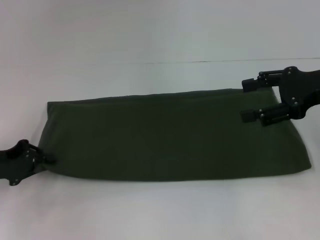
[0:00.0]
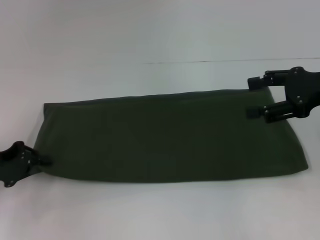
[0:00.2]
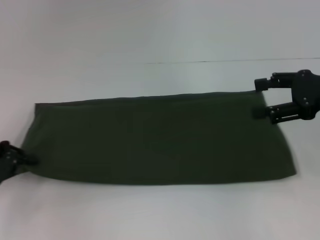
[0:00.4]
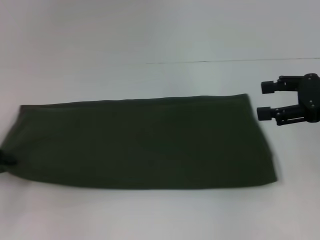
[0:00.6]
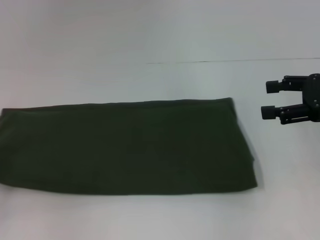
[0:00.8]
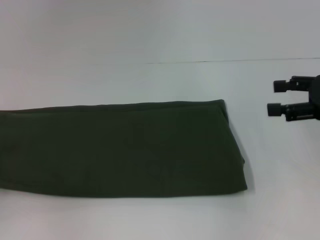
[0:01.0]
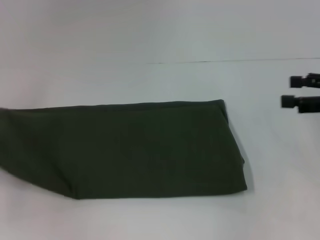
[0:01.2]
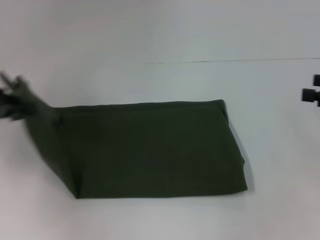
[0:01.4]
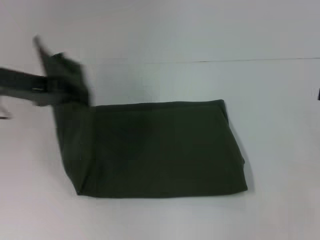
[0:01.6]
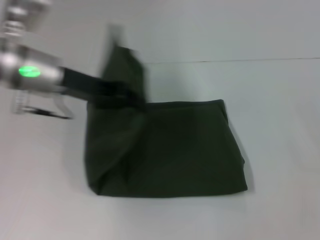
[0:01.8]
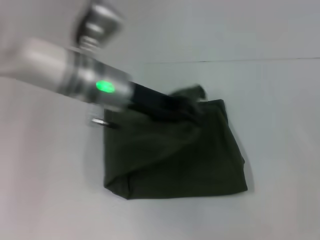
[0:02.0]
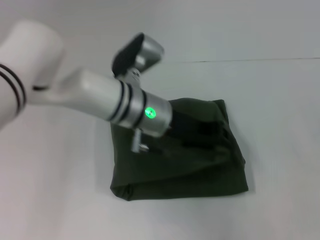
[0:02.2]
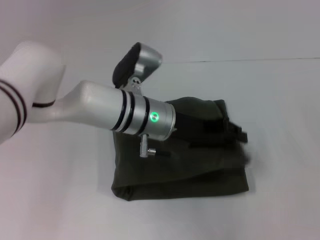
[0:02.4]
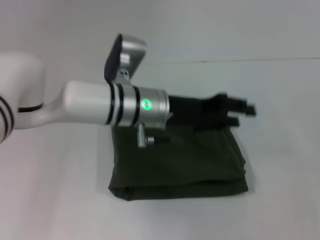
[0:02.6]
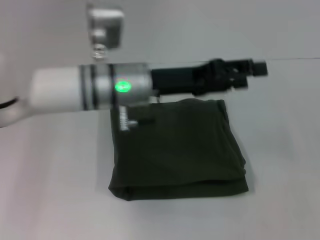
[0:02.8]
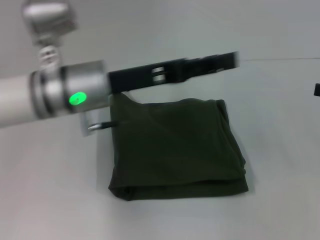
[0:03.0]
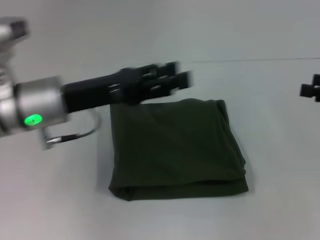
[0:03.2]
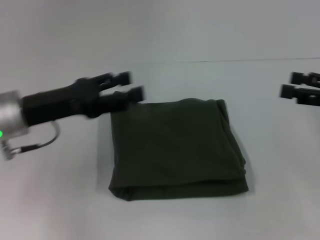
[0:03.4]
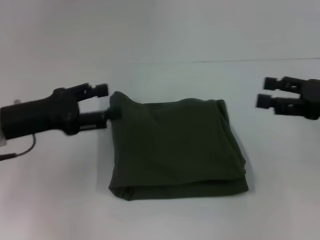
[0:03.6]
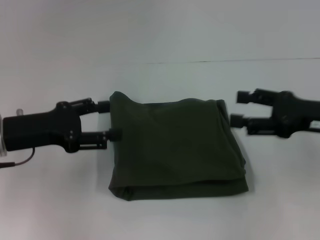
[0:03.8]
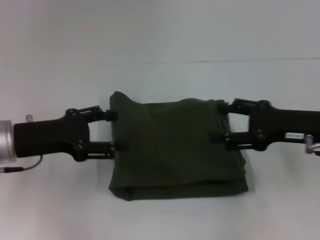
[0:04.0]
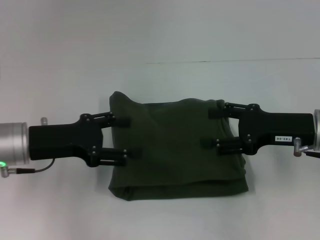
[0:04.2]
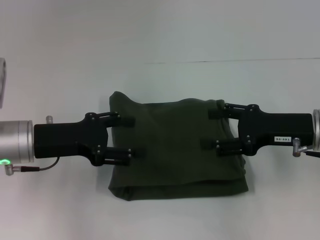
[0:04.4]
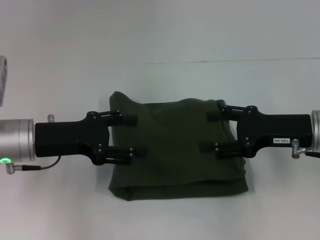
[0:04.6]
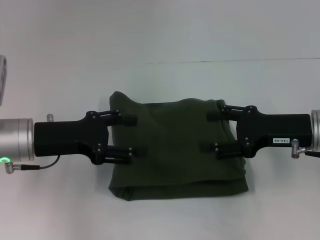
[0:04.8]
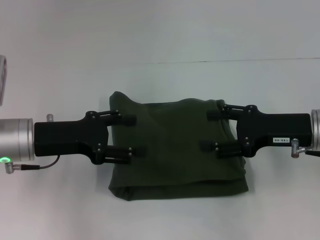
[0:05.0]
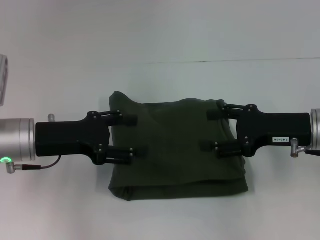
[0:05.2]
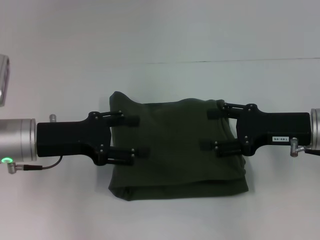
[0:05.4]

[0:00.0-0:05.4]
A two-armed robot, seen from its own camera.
Step, 0:00.0 to 0:02.6: Fold the clothes with your left hand.
0:00.0 to 0:01.4: The right gripper heads to the right, covering about 10 cm; the left gripper goes roughly 10 cm upward.
0:01.4 to 0:02.8: The left gripper is displaced to the right by about 30 cm, and opens up.
0:02.8 to 0:04.0: The two grippers go some 15 cm to the left.
0:04.0 to 0:05.4: The grippers stay close to where they were, moving slightly.

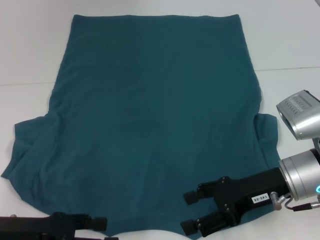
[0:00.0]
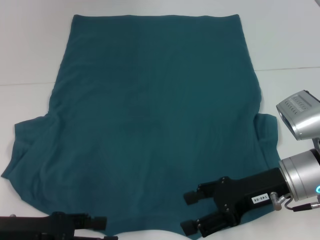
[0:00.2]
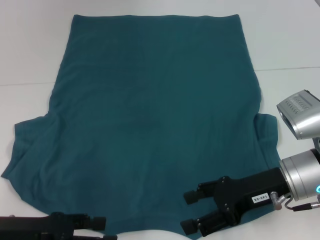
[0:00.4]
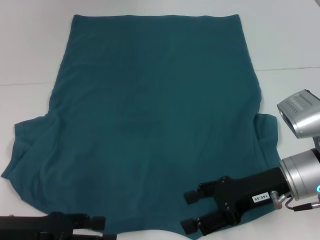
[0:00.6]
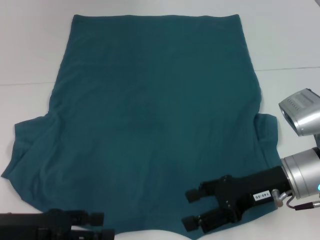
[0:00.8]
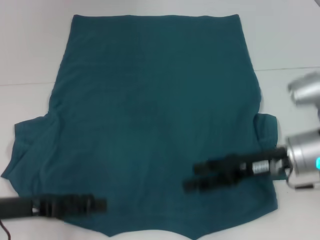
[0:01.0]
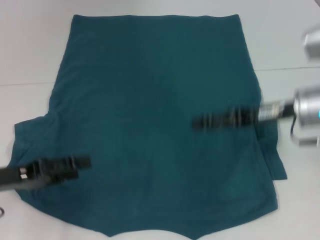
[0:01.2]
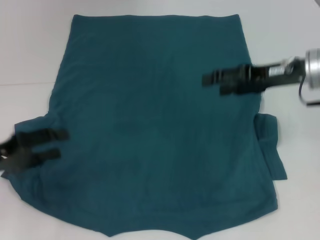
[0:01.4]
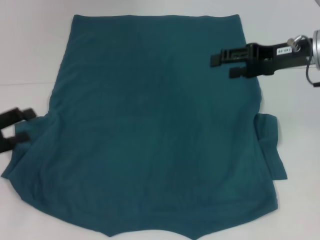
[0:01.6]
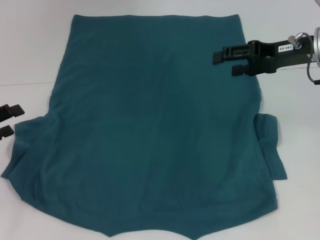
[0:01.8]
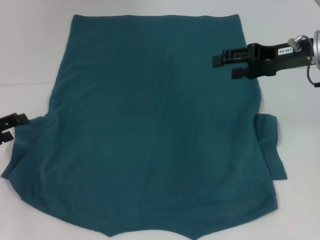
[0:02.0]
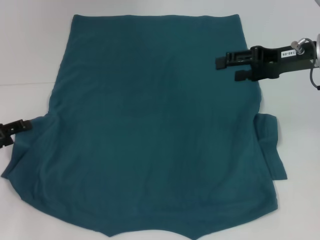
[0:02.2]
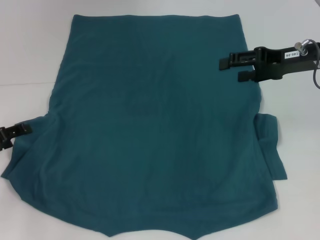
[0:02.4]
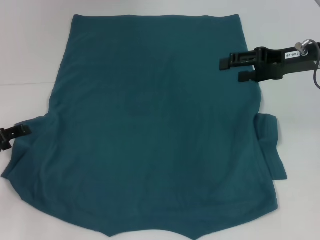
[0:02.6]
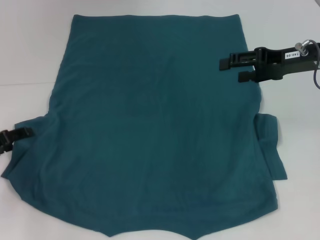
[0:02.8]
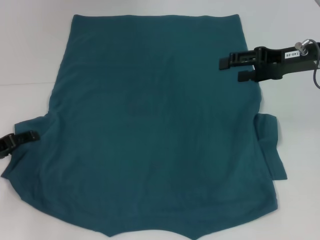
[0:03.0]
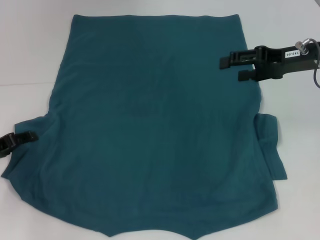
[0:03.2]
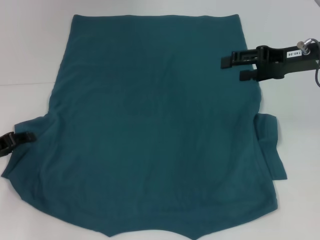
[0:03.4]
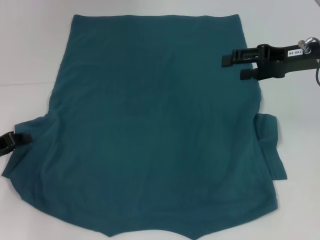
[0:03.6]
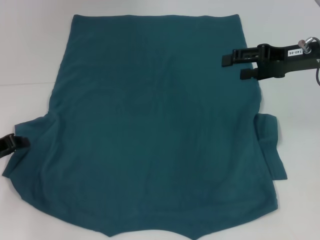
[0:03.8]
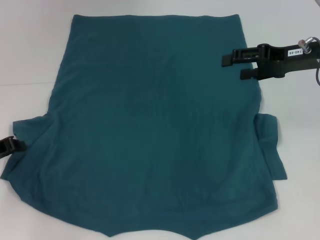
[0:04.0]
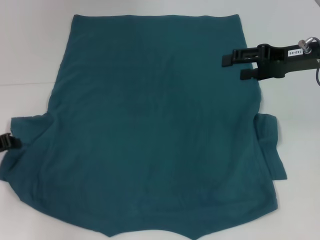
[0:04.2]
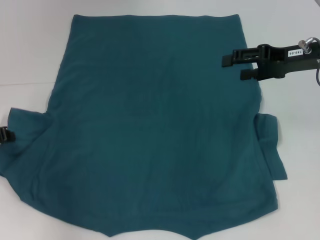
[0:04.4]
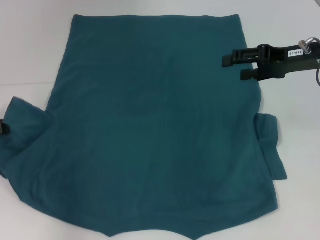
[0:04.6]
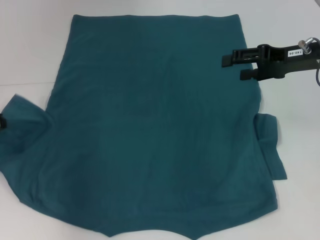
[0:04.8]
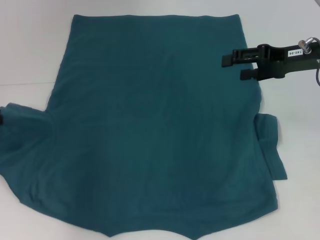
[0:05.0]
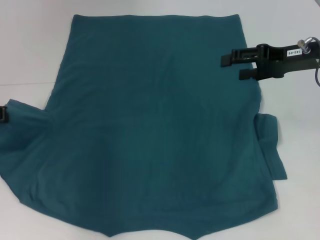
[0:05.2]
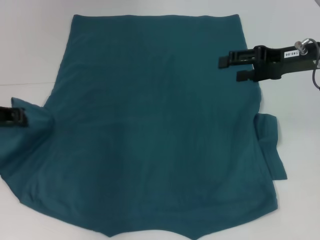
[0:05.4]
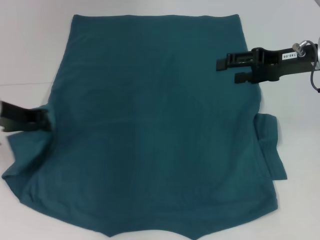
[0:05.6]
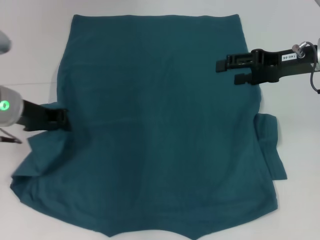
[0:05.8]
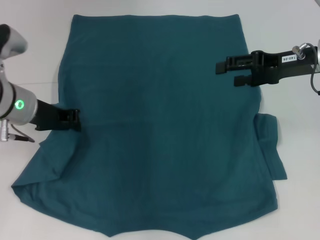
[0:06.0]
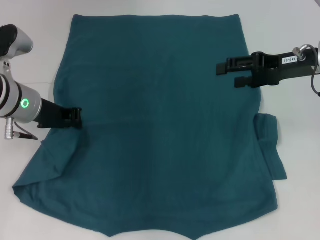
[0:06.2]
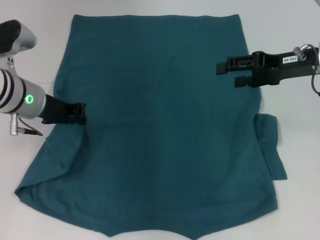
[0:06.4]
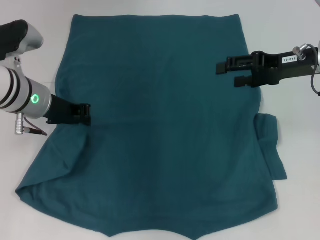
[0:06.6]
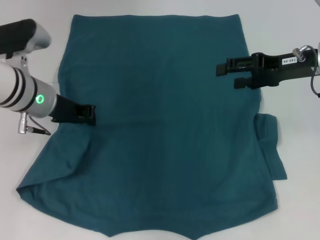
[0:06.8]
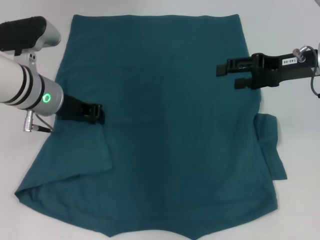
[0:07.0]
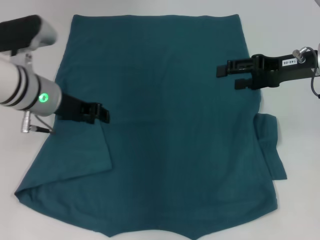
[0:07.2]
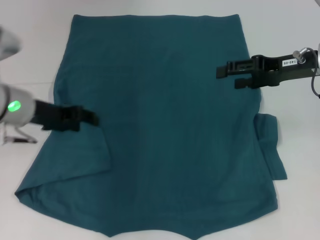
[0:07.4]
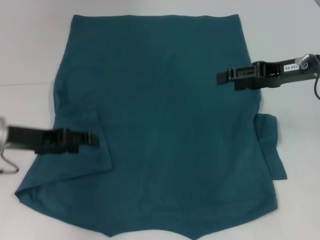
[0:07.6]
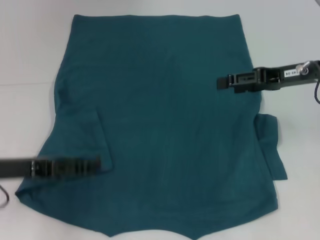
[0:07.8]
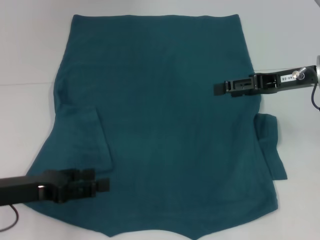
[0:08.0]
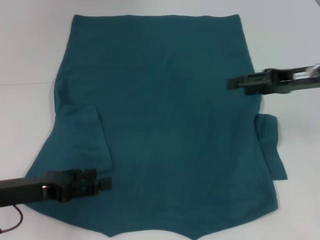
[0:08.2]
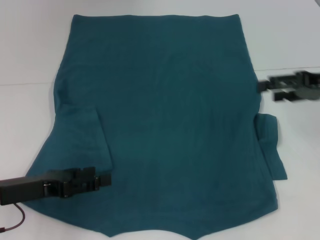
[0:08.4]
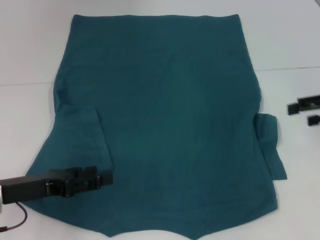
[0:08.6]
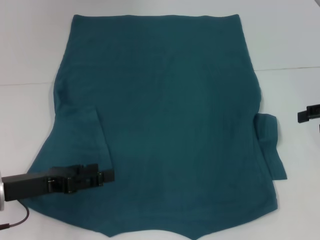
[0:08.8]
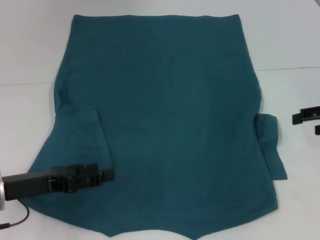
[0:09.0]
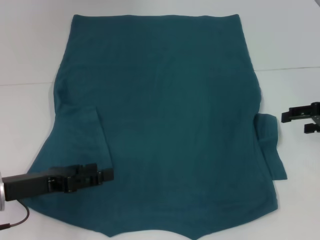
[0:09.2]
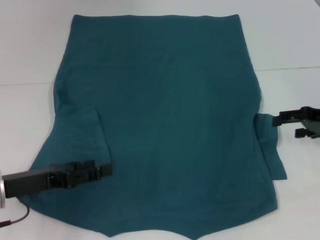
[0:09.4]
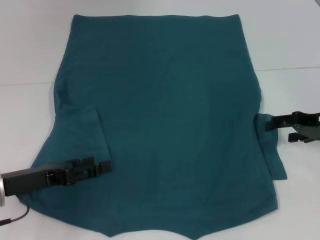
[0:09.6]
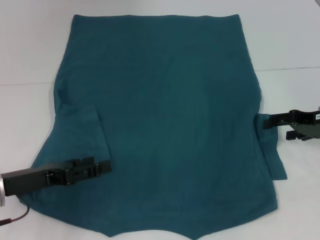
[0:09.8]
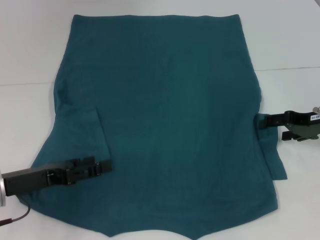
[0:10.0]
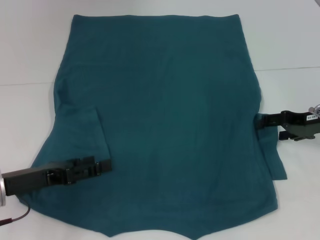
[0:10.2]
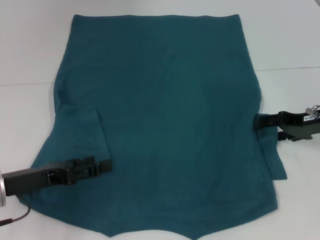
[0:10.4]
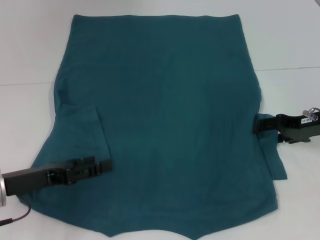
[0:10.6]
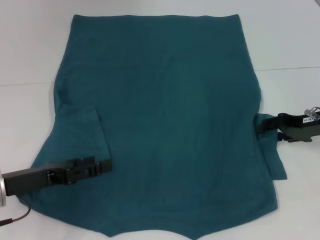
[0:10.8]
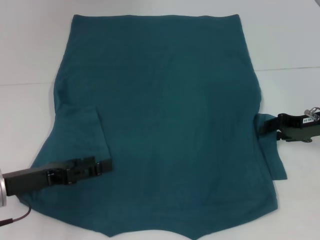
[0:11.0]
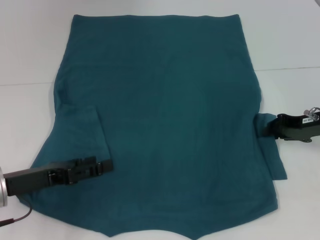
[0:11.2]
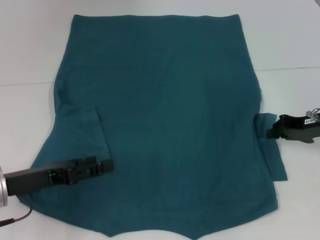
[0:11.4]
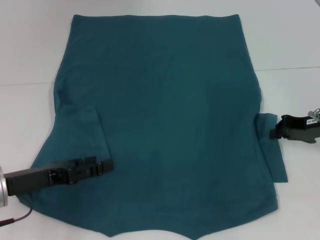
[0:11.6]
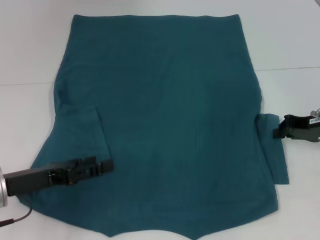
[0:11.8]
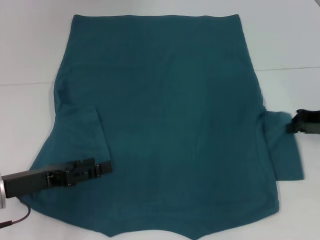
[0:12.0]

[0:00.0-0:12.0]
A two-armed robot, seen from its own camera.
Step, 0:00.0 to 0:07.0: Fold the bottom left sleeve with your left hand.
0:00.0 to 0:01.6: The left gripper heads to the left and forward, covering roughly 10 cm; the right gripper is displaced forward, upward and to the right by about 15 cm.
0:01.6 to 0:03.0: The left gripper moves about 5 cm.
0:03.0 to 0:04.4: The left gripper closes its fingers.
0:04.4 to 0:06.0: The left gripper shifts approximately 15 cm to the right and upward.
0:06.0 to 0:07.6: The left gripper travels backward by about 5 cm, and opens.
0:07.6 to 0:09.0: The left gripper is displaced backward by about 5 cm. The right gripper is displaced to the right by about 10 cm.
0:09.0 to 0:10.4: The right gripper moves to the left and downward, about 10 cm.
0:10.4 to 0:12.0: The right gripper closes up.

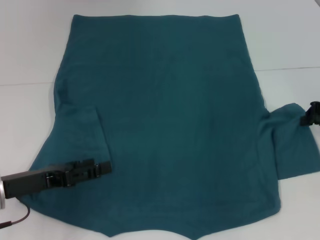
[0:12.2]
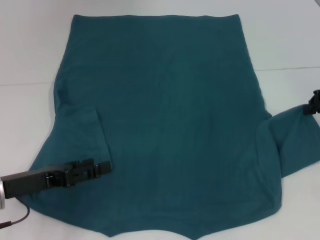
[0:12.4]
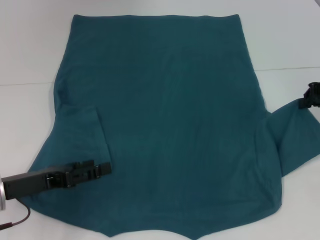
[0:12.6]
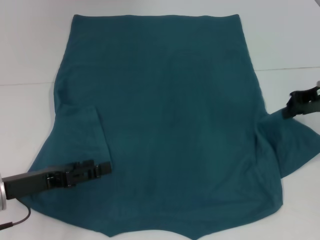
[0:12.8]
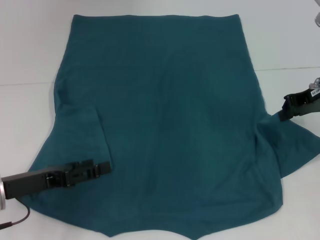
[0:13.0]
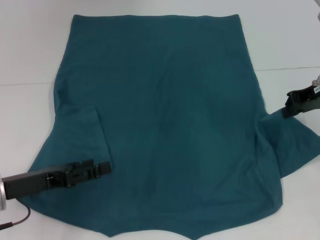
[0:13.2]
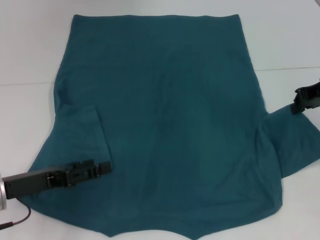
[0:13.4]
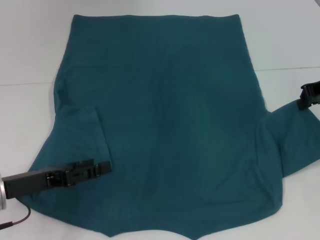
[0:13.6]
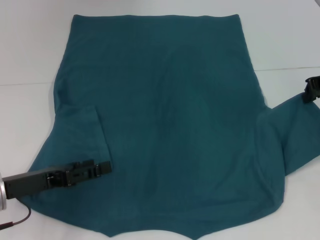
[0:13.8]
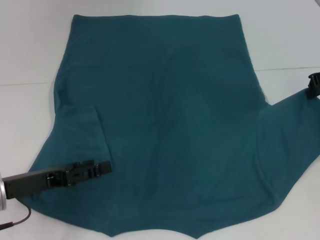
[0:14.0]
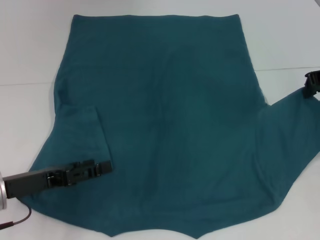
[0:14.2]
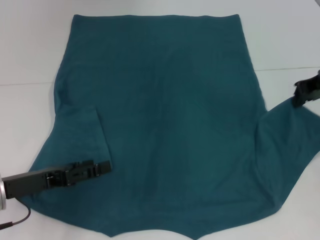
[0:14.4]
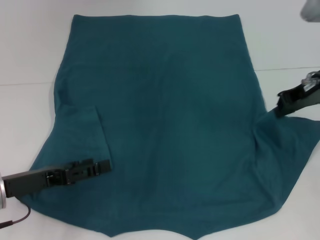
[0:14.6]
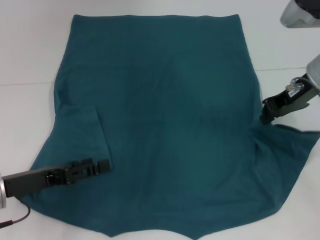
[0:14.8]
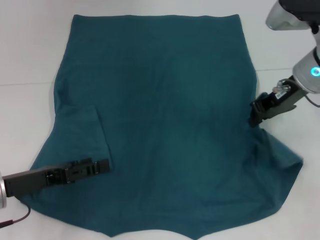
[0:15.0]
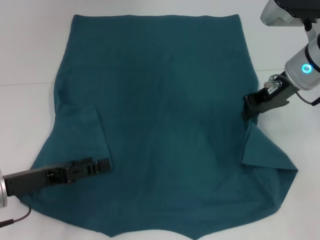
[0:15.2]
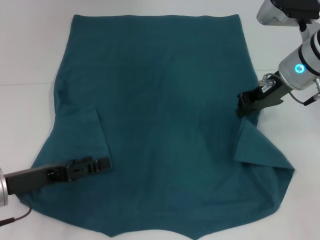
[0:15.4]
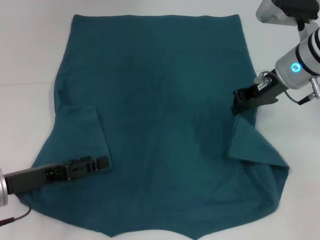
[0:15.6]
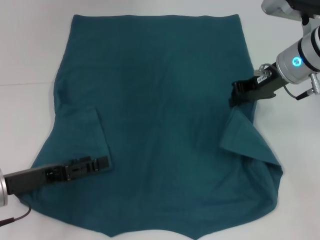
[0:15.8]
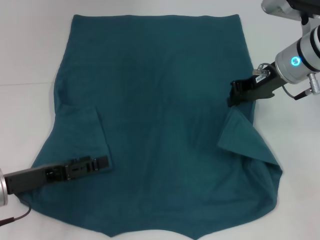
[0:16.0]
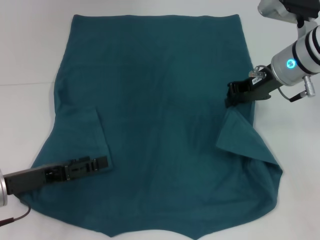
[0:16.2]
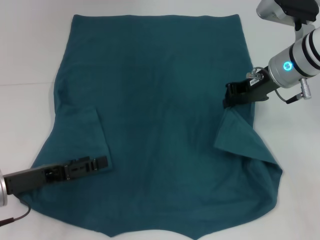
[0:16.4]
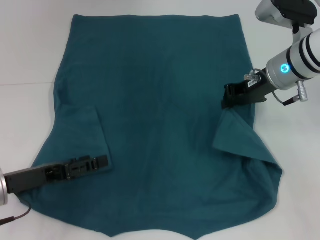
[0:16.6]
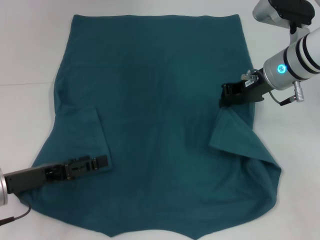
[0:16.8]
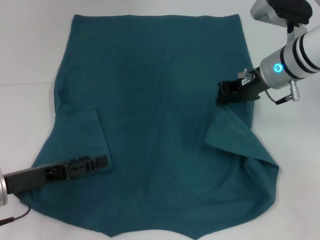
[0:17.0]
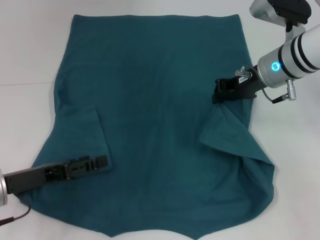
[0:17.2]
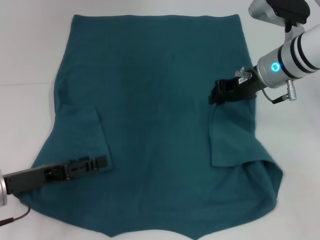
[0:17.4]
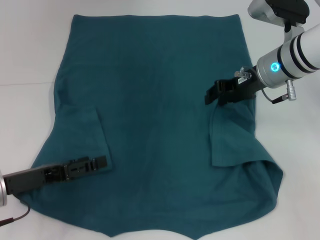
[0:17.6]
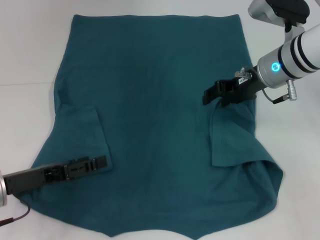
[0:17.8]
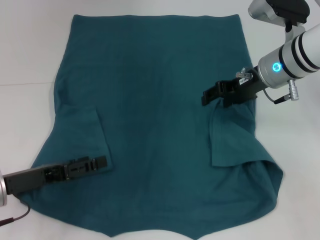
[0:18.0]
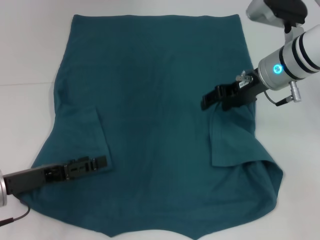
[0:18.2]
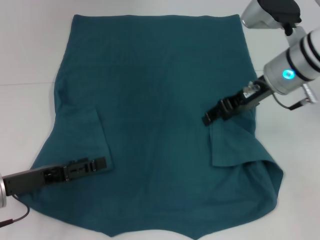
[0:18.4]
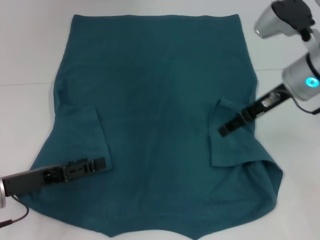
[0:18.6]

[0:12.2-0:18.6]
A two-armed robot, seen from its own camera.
Step, 0:12.2 to 0:17.4: Fold the bottom right sleeve to the right.
0:12.2 to 0:13.8: The right gripper heads upward, covering some 5 cm.
0:13.8 to 0:15.4: The right gripper travels to the left by roughly 10 cm.
0:15.4 to 0:17.0: The grippers move only a little.
0:17.0 to 0:18.6: The right gripper opens its fingers.
